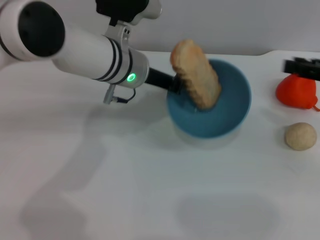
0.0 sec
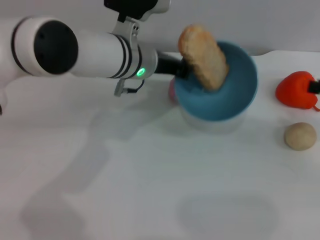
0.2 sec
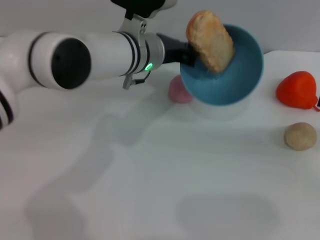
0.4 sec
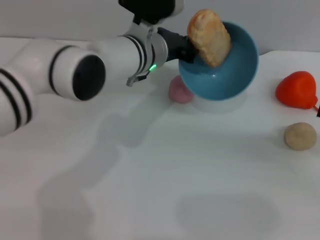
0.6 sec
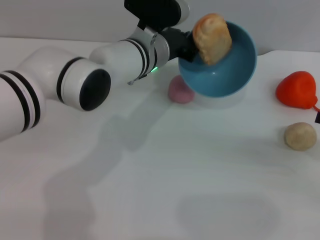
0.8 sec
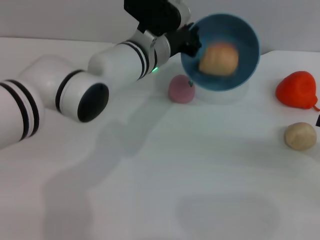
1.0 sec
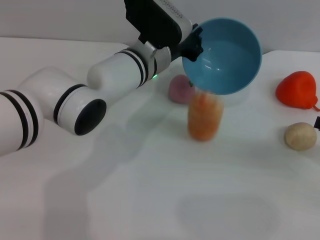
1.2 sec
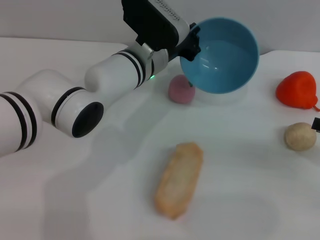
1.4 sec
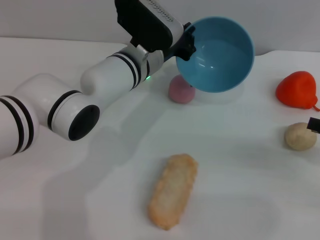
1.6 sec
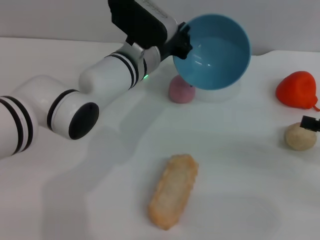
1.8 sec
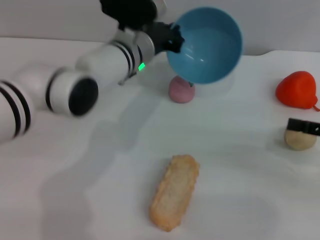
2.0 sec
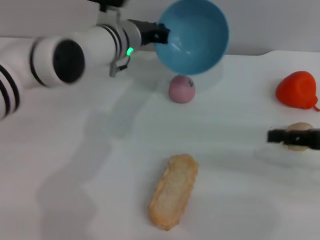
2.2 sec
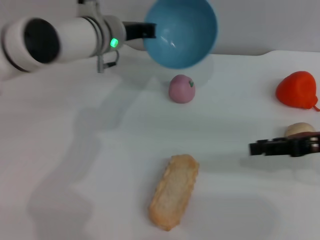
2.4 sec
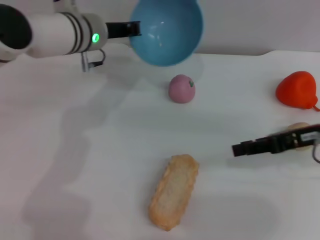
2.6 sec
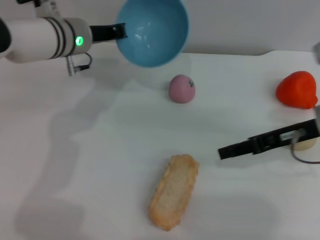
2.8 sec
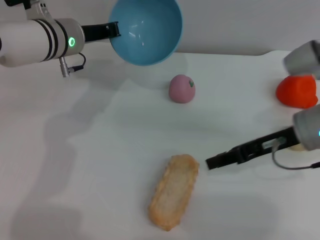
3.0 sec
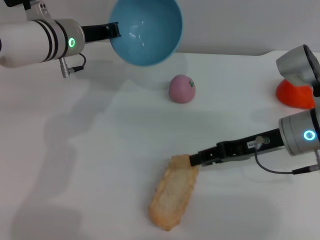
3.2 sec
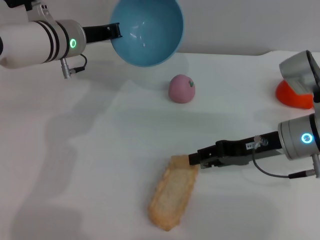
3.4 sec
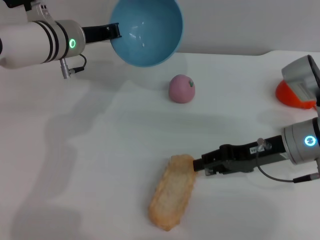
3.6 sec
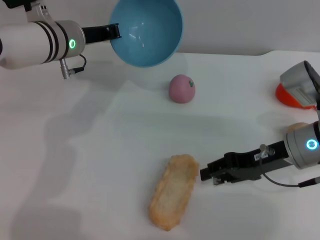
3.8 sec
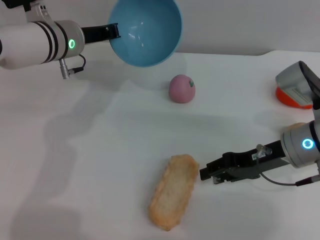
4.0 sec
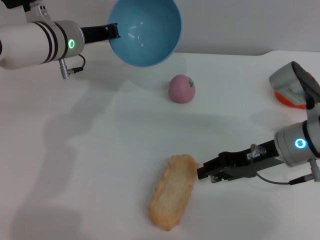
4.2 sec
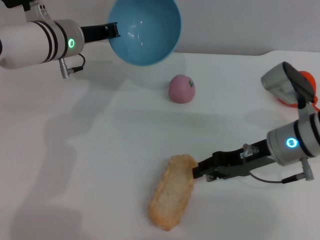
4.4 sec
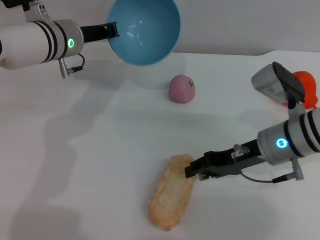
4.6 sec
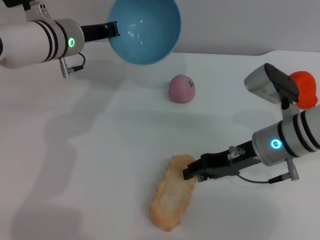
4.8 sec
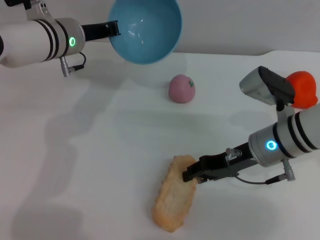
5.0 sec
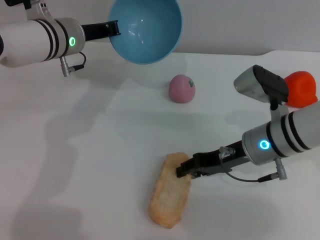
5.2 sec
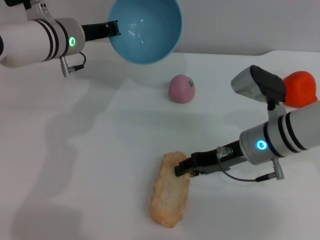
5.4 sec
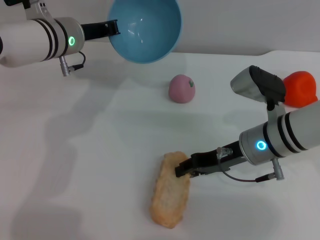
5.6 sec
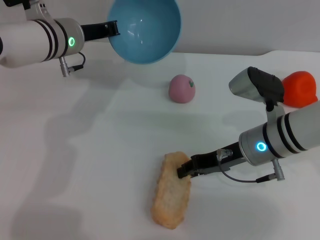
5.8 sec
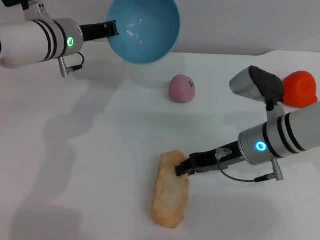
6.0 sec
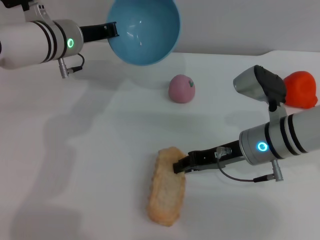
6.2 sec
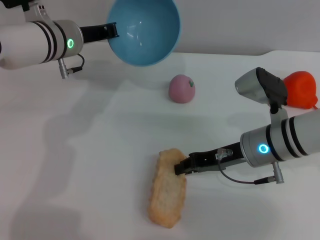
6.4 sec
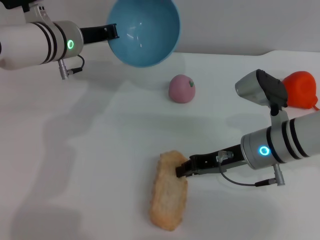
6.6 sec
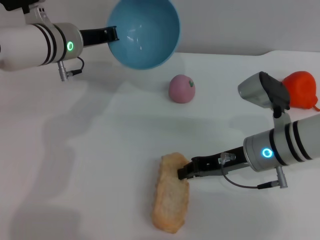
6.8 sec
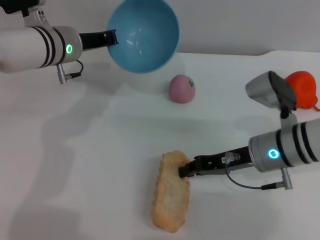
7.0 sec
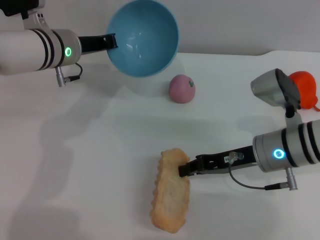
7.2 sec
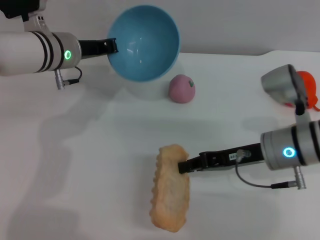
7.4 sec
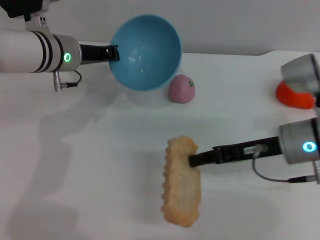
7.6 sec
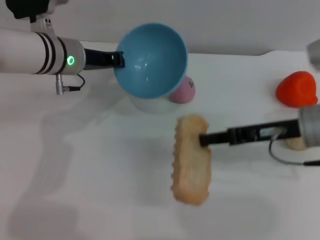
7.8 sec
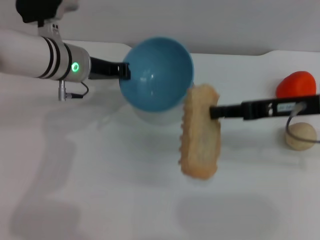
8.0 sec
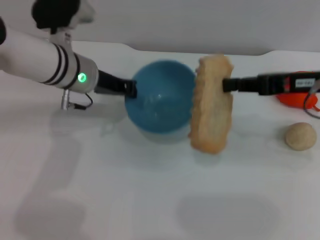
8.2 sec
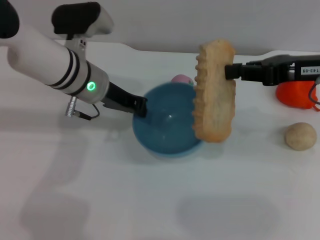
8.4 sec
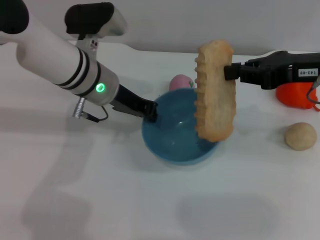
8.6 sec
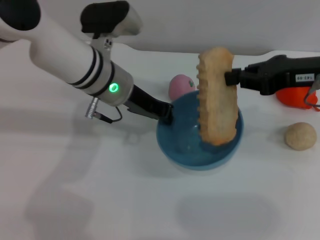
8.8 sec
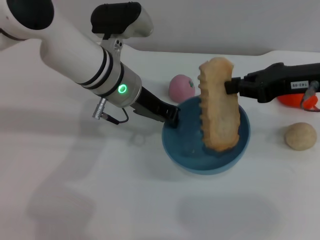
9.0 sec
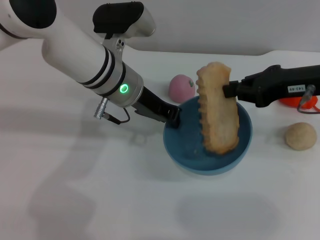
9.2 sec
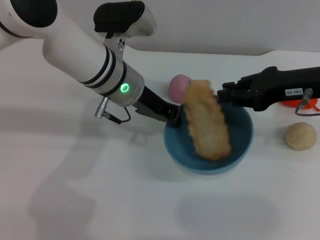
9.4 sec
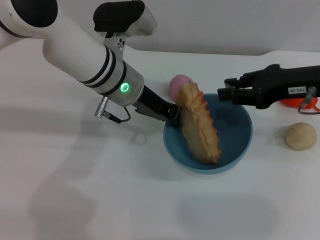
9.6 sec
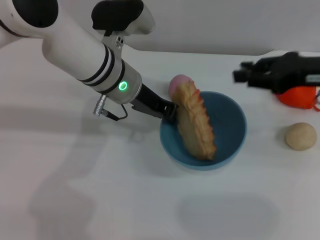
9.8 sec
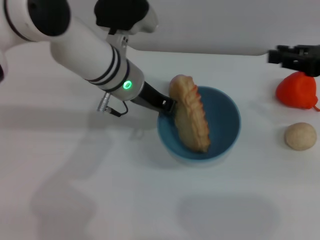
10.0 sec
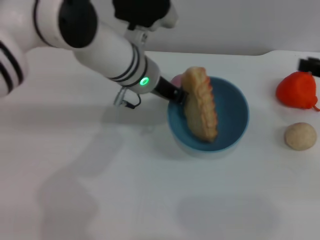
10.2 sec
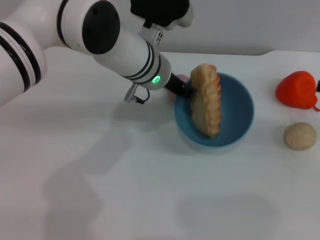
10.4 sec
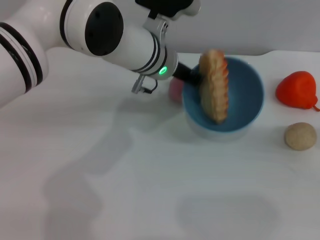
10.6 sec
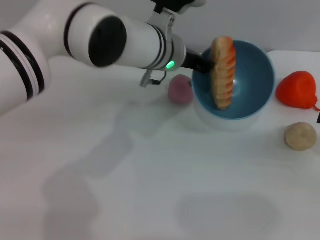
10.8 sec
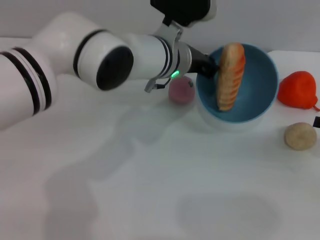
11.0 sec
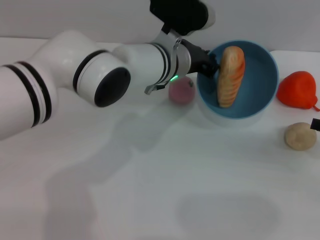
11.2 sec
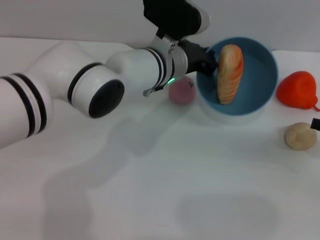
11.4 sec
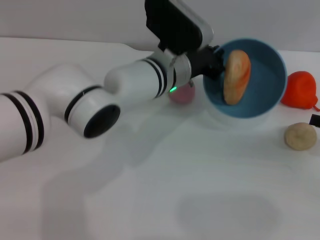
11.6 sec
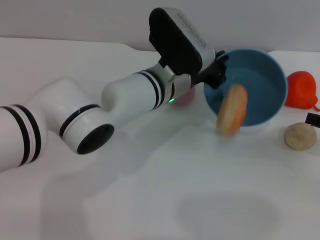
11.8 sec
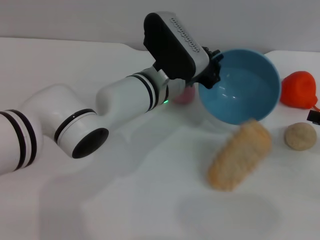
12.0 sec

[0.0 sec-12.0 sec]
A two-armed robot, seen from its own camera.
Task of the whole recording: put the bread into the blue bowl and pour it out repeatedly.
Step, 0.0 sec to 1.6 sec: Pour the bread out of the bowl.
Step, 1.8 sec to 7.6 sec: Pick up the bread with the right gripper.
Step, 8.0 sec to 9.8 sec: Place the bread into the bowl.
0.0 sec to 1.6 sec: The left gripper changes place by about 5 cm. The right gripper travels downward and backward by roughly 10 cm.
1.6 sec to 3.0 sec: The left gripper travels to the left by roughly 10 cm. Meanwhile the right gripper shifts roughly 20 cm to the left and forward.
4.4 sec to 6.0 sec: There are only small adjustments of the grippers.
6.0 sec to 7.6 sec: The right gripper ends up about 5 cm from where it was, and closes.
7.6 sec to 9.0 sec: The left gripper travels to the right by about 10 cm, while the right gripper is displaced upward by some 10 cm.
9.0 sec to 10.4 sec: The left gripper heads to the right, covering some 5 cm, while the right gripper is displaced to the right by about 15 cm, and opens its fingers.
10.4 sec to 12.0 sec: The left gripper moves roughly 5 cm.

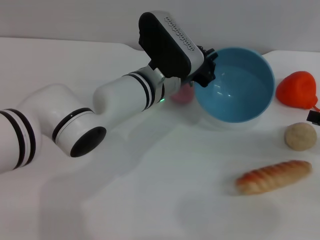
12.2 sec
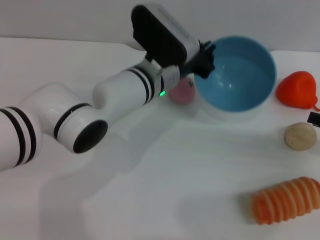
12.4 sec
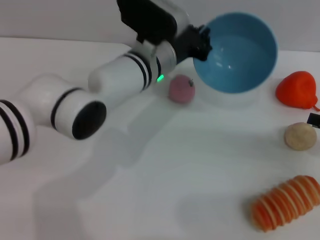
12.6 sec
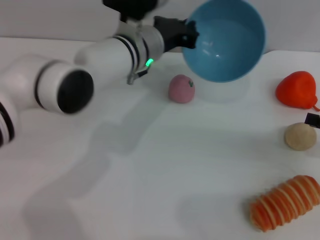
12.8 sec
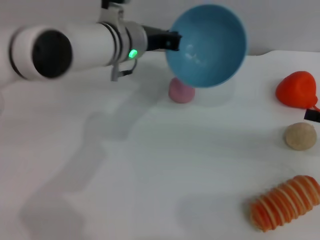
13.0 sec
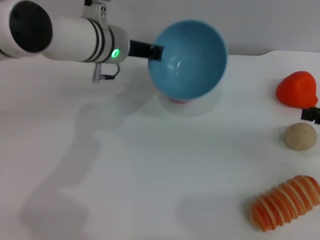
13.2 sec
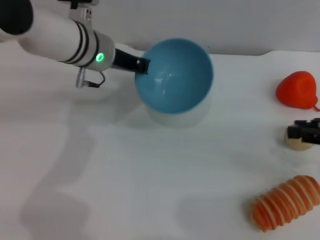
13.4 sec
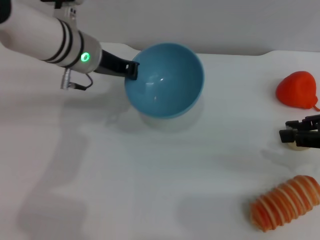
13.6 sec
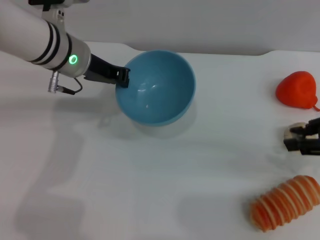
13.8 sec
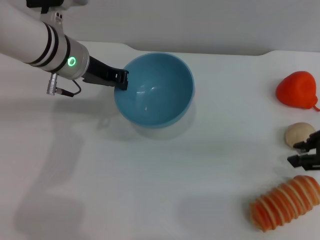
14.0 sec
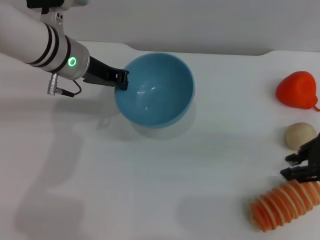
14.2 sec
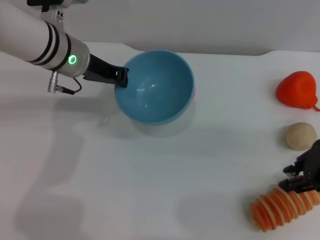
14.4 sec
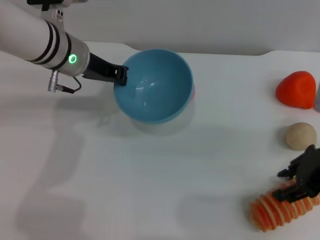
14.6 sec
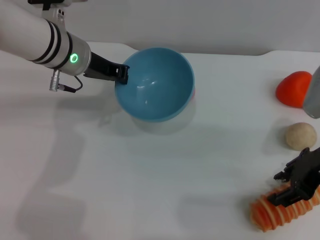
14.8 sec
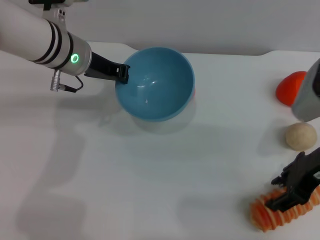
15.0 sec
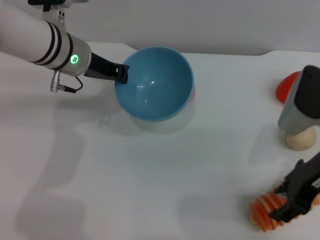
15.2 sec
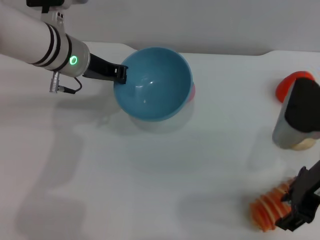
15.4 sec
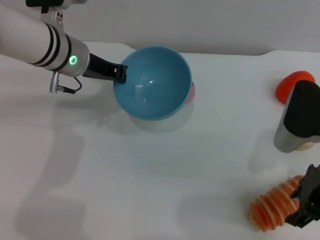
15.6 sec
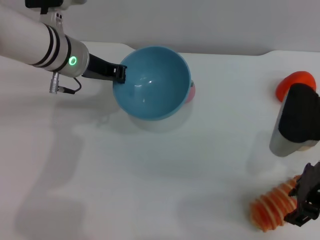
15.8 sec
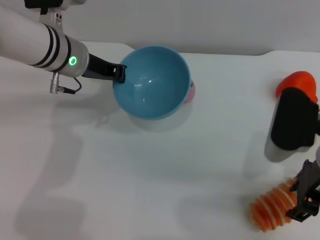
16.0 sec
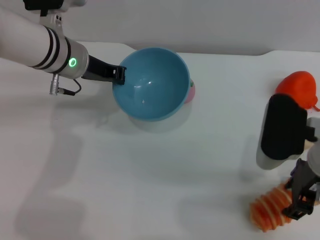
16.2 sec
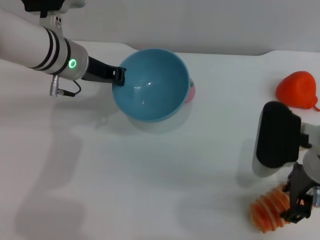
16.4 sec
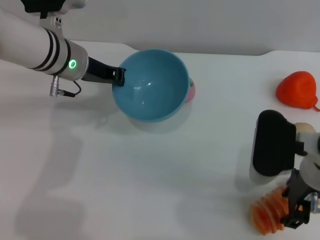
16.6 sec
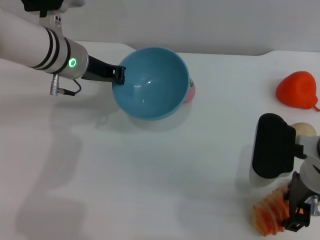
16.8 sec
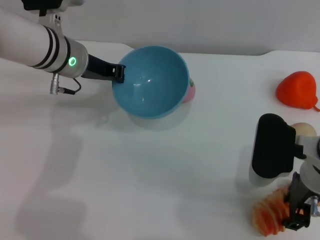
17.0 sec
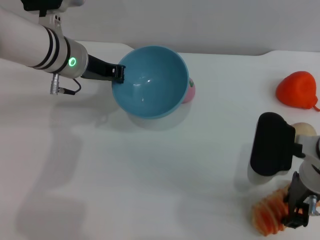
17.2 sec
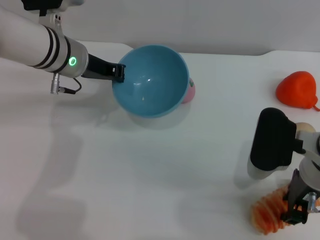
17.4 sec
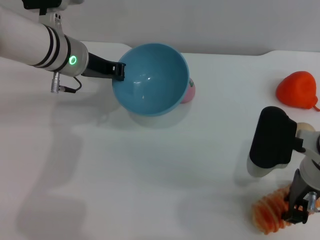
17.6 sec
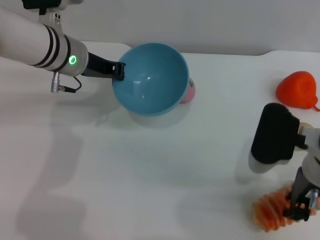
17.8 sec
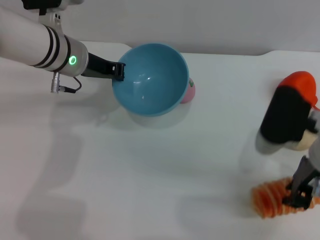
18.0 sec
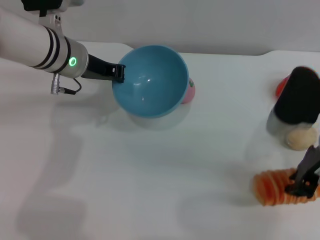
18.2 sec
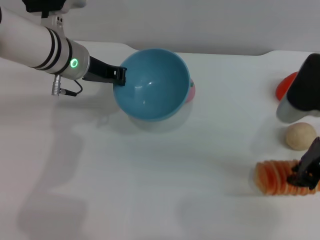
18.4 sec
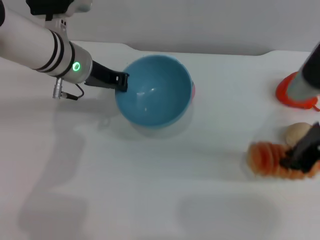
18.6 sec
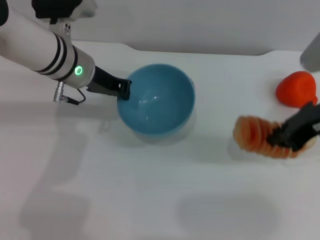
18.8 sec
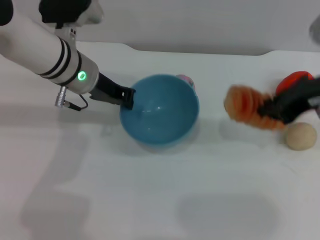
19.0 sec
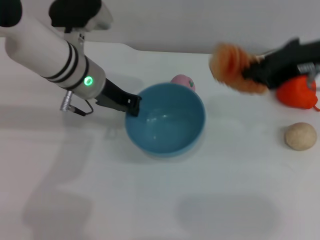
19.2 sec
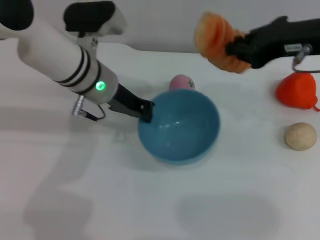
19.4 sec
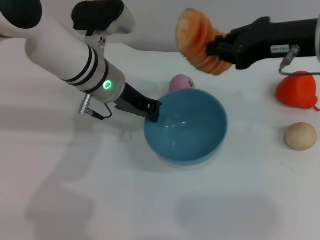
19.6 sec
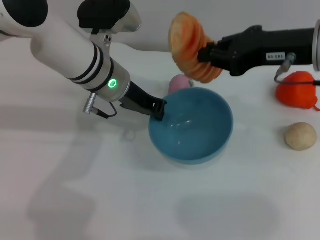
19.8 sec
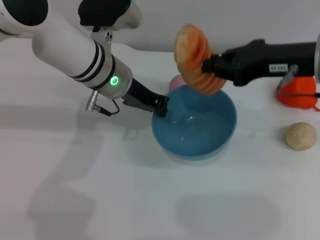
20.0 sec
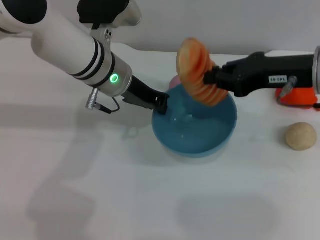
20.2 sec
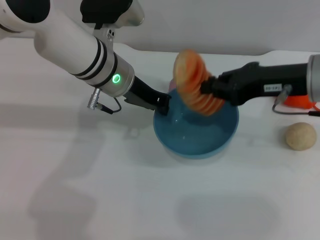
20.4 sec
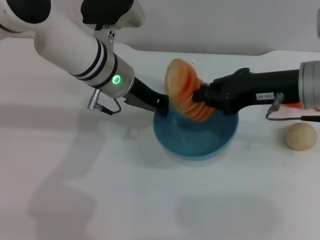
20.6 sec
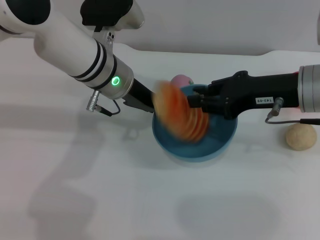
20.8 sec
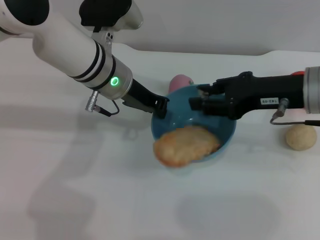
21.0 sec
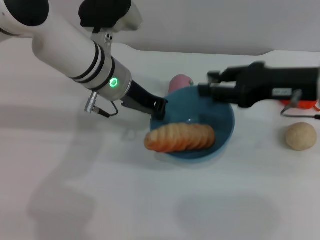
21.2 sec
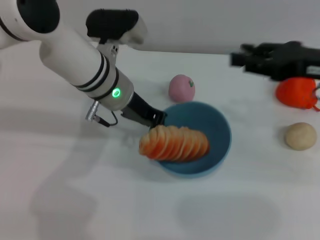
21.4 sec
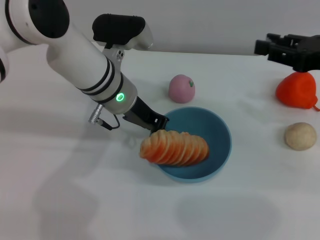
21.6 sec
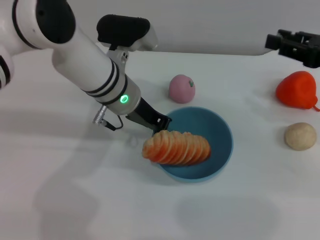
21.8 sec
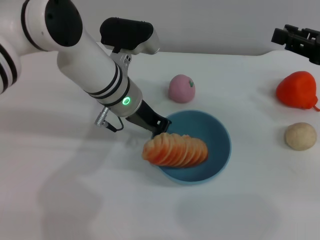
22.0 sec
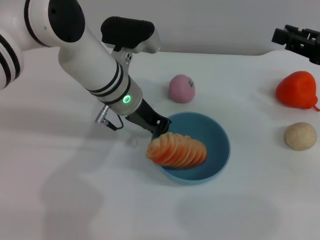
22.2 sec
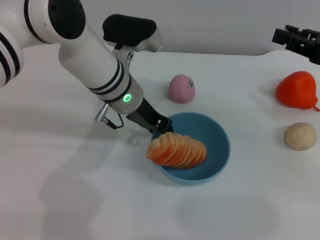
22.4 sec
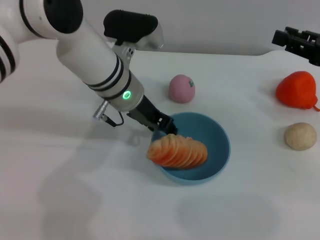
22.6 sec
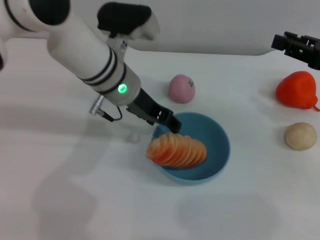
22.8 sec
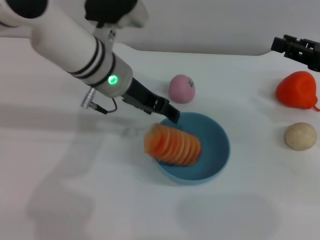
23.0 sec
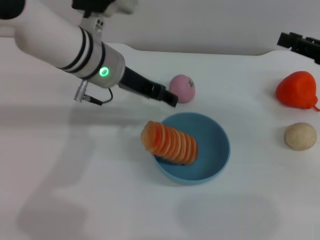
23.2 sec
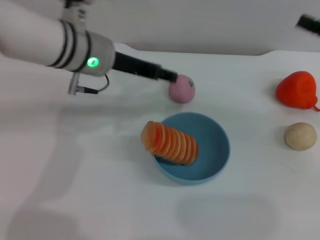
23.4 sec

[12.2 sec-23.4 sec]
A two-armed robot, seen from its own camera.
Task of the whole recording: put the bread into the blue bowl and pour it out repeatedly.
Step, 14.0 sec to 18.6 sec: Pick up the bread with the right gripper.
Step, 18.8 sec to 21.2 sec: Place the bread into the bowl.
12.2 sec to 13.8 sec: The left gripper moves to the left and upward, roughly 15 cm; the right gripper travels upward and to the left by roughly 10 cm.
13.8 sec to 15.4 sec: The right gripper moves to the left, roughly 10 cm, and opens its fingers.
15.4 sec to 17.0 sec: The right gripper shifts by some 5 cm.
17.0 sec to 18.6 sec: The right gripper shifts roughly 5 cm upward, and closes up.
18.6 sec to 20.2 sec: The left gripper goes approximately 5 cm to the right.
20.2 sec to 21.8 sec: The right gripper heads to the right, covering some 10 cm, and opens up.
21.8 sec to 23.4 sec: The left gripper heads upward, covering some 5 cm, and opens.
